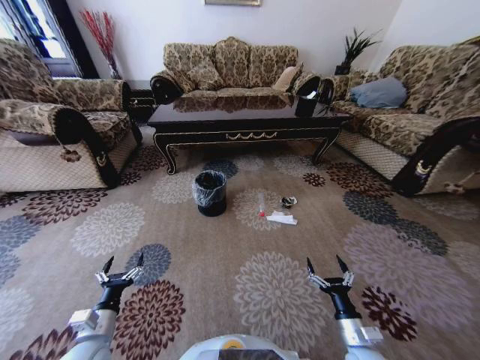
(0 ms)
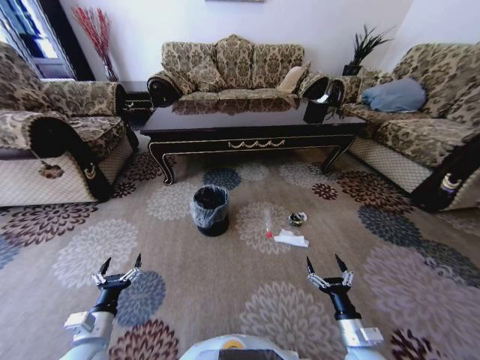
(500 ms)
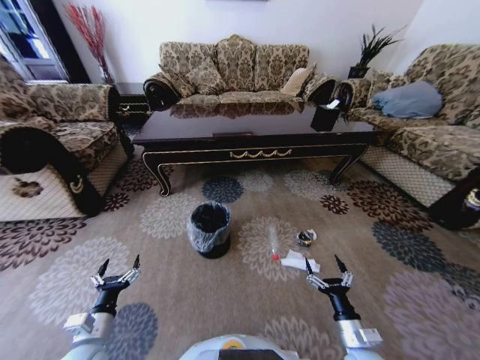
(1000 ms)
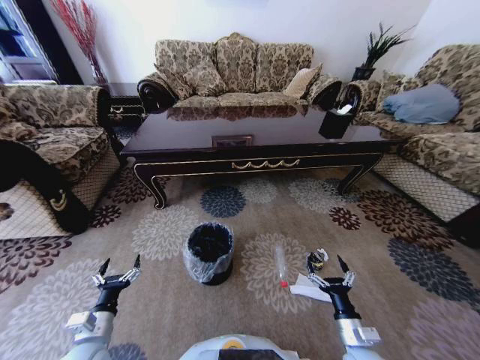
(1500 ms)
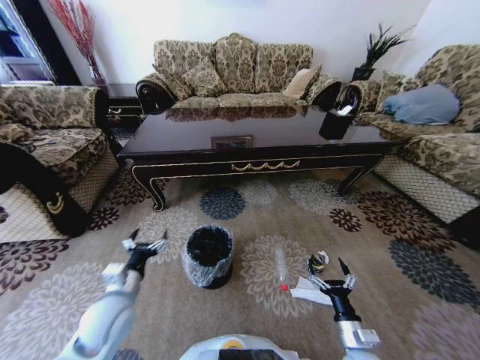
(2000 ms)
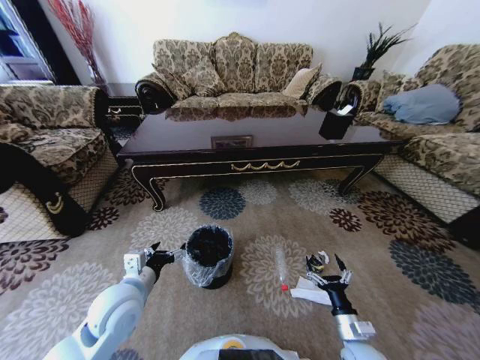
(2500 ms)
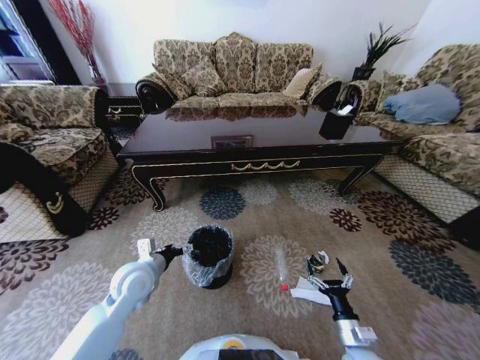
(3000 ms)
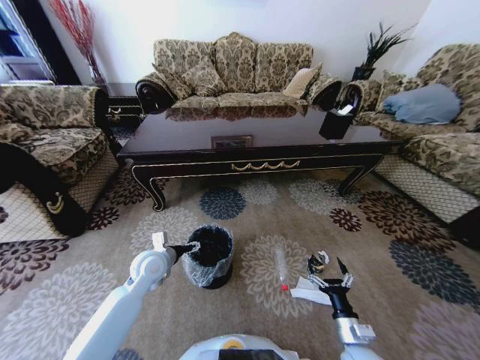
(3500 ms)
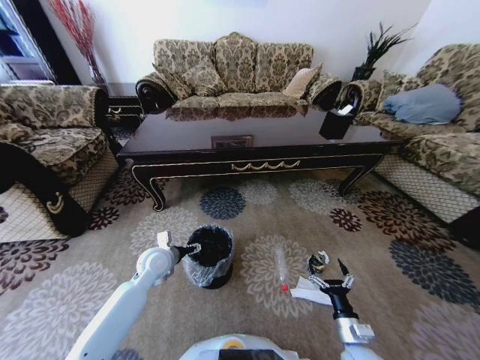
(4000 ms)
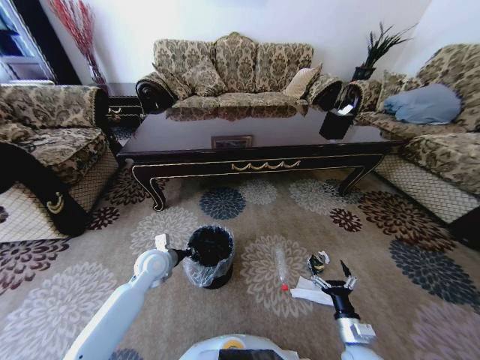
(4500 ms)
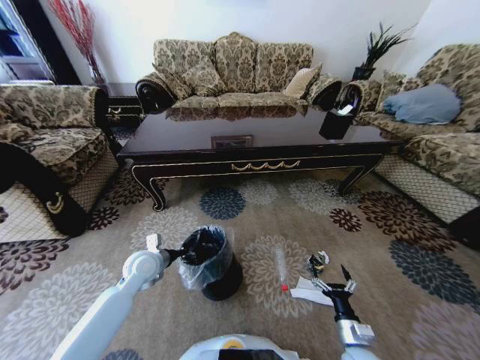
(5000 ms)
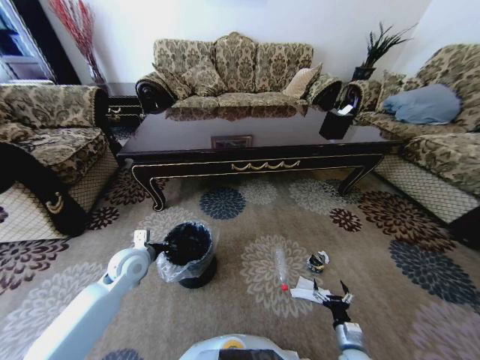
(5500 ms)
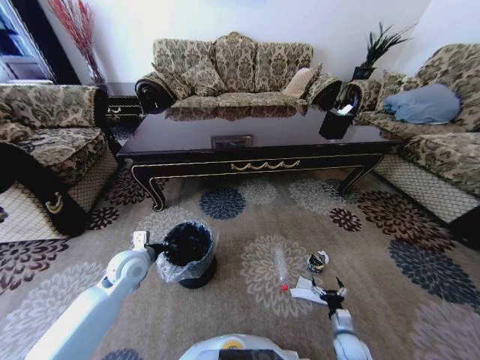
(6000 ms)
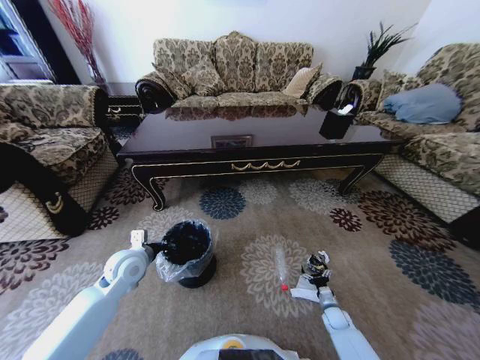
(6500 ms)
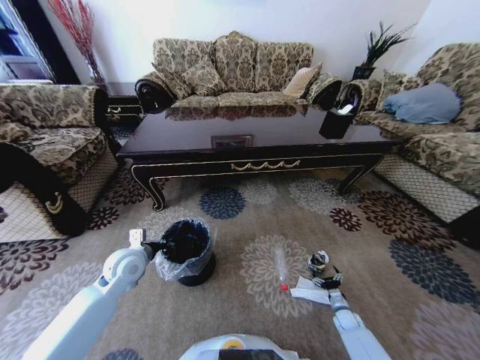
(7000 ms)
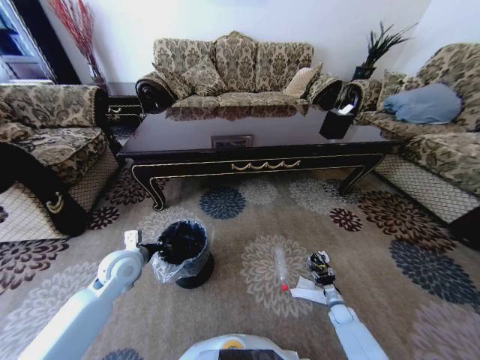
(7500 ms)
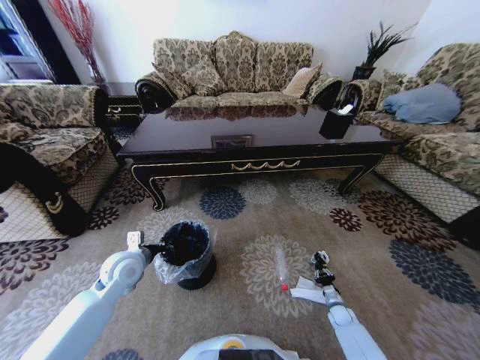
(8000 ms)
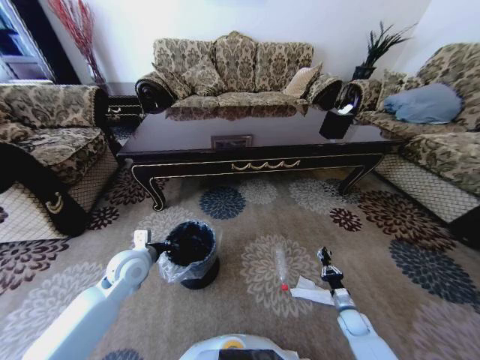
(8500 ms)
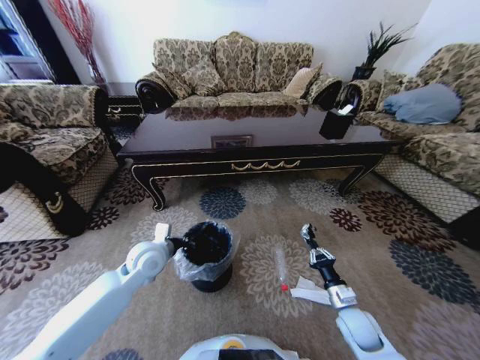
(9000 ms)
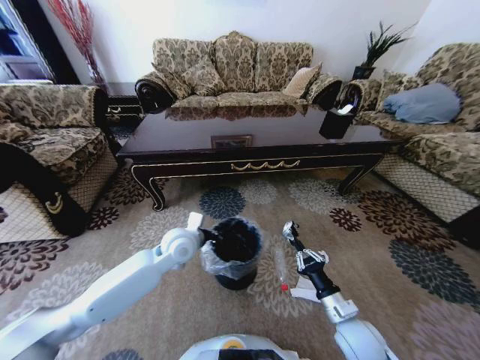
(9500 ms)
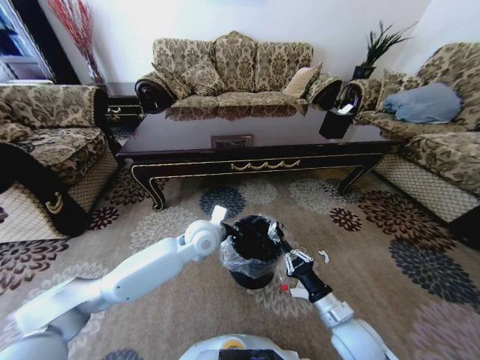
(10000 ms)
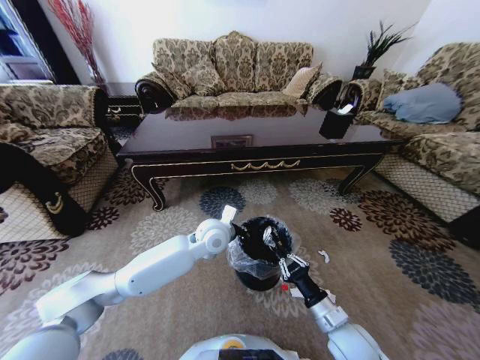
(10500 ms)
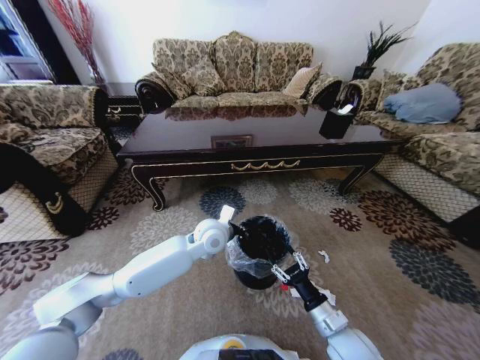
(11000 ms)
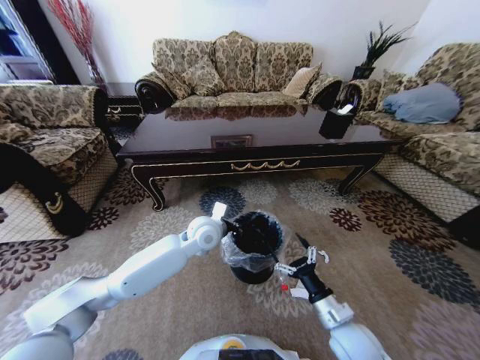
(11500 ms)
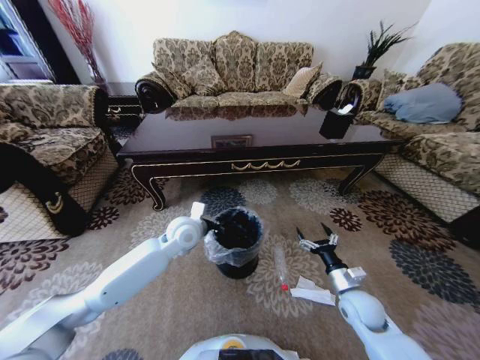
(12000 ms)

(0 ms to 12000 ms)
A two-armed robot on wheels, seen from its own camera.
Task of the whole recording: Move to the front of the table and pick up the trash from the floor, then place it into the trash bin.
0 ms - 2000 ms: The left gripper travels upward, forward and to the right by about 15 cm.
2000 ms - 4000 ms: The left gripper heads forward, covering roughly 15 cm.
4000 ms - 6000 ms: The right gripper heads downward and to the right, covering roughly 15 cm, while the left gripper heads to the left, covering roughly 5 cm, and closes its fingers.
6000 ms - 8000 ms: The right gripper shifts some 10 cm forward and to the right, and closes.
8000 ms - 10000 ms: The right gripper goes approximately 30 cm upward and to the left; the left gripper travels to the right by some 20 cm.
10000 ms - 12000 ms: The left gripper moves to the left, approximately 5 cm, while the right gripper moves to the right and forward, about 10 cm, and opens.

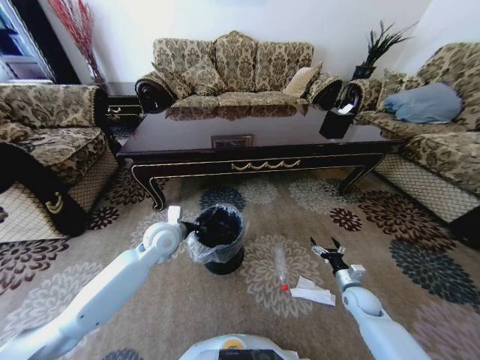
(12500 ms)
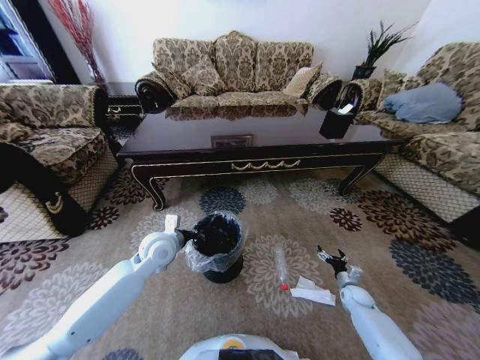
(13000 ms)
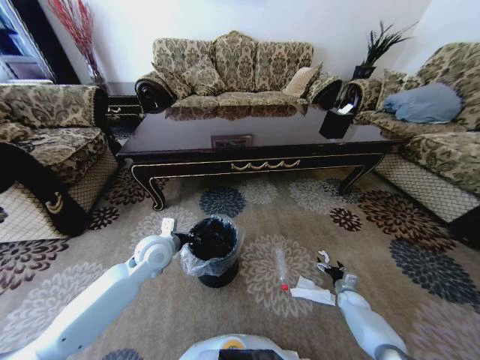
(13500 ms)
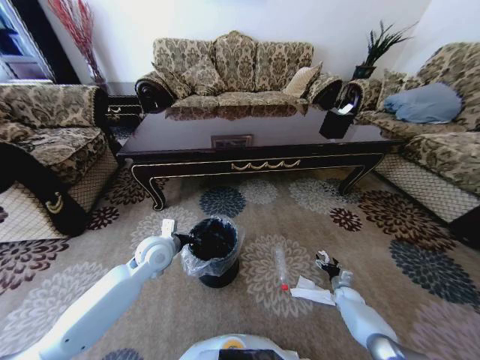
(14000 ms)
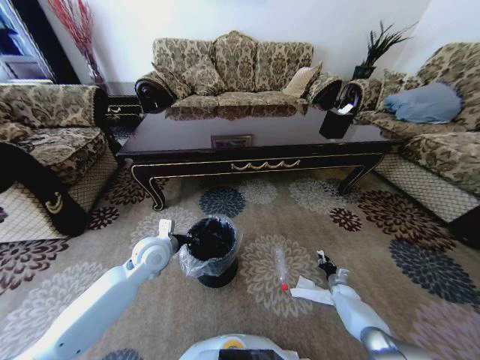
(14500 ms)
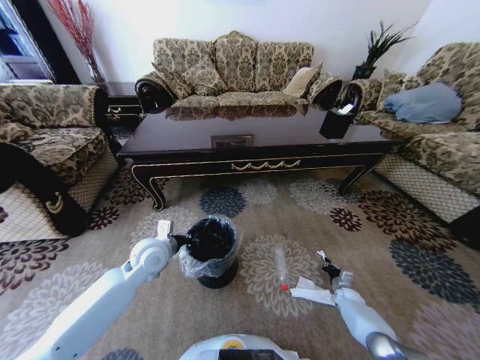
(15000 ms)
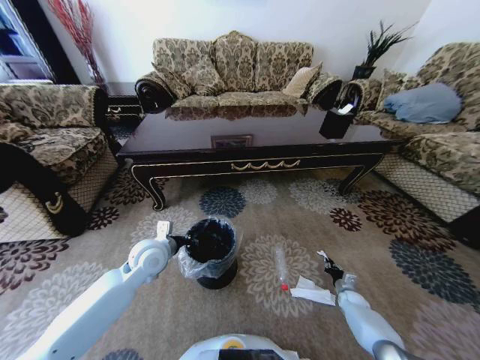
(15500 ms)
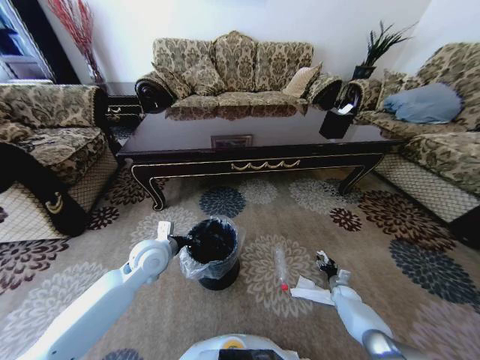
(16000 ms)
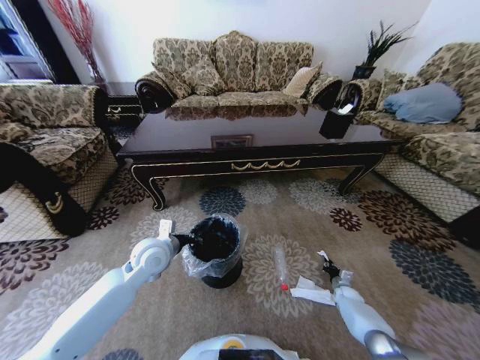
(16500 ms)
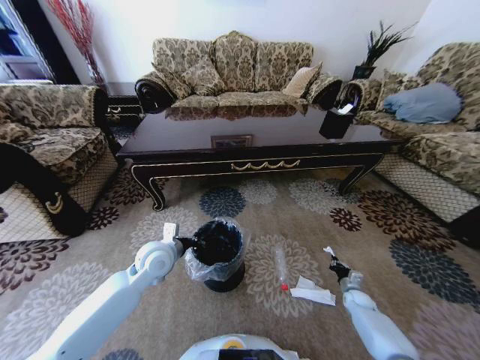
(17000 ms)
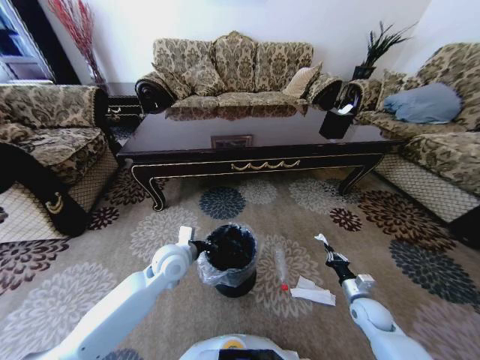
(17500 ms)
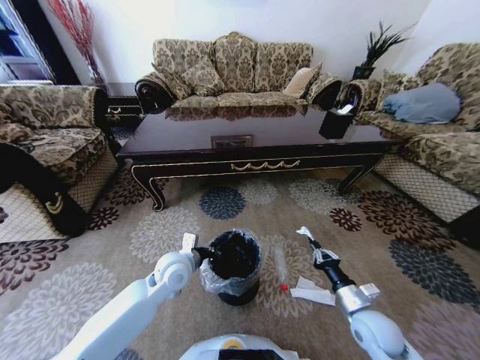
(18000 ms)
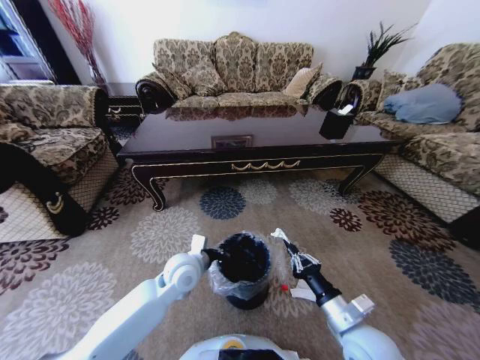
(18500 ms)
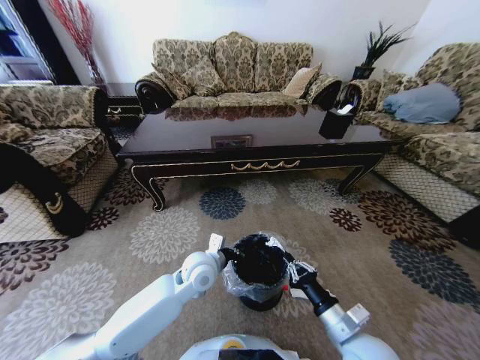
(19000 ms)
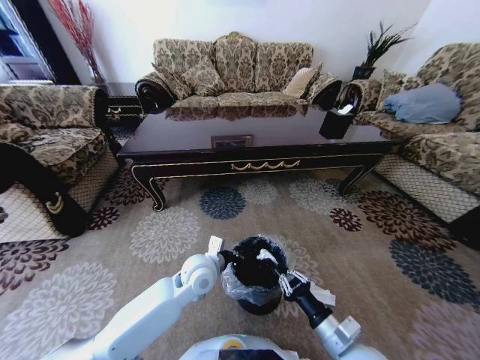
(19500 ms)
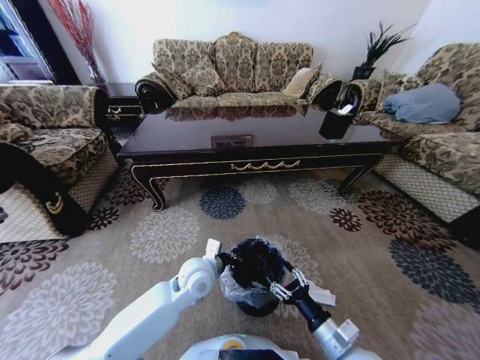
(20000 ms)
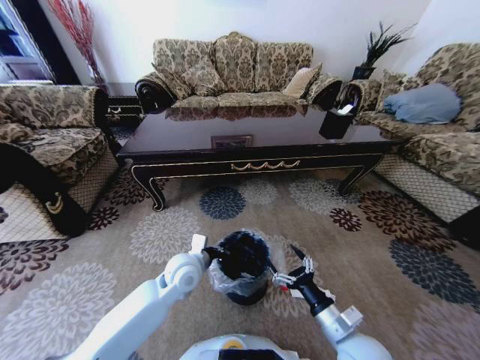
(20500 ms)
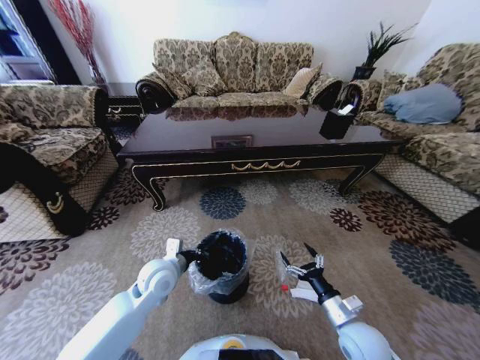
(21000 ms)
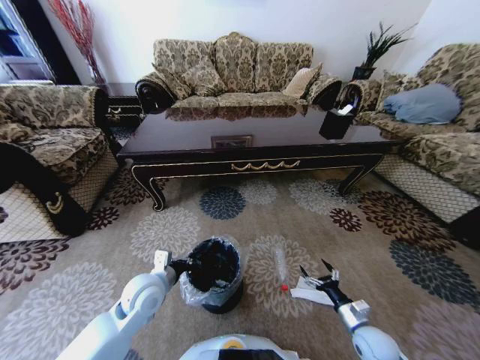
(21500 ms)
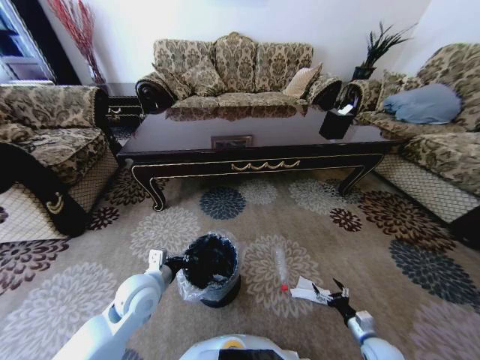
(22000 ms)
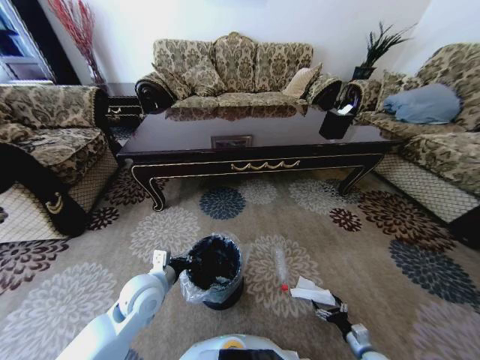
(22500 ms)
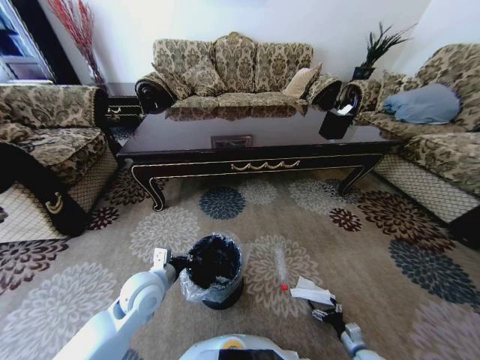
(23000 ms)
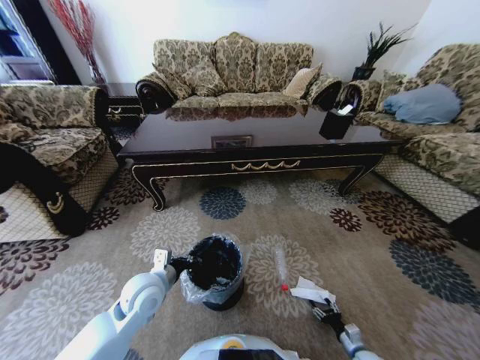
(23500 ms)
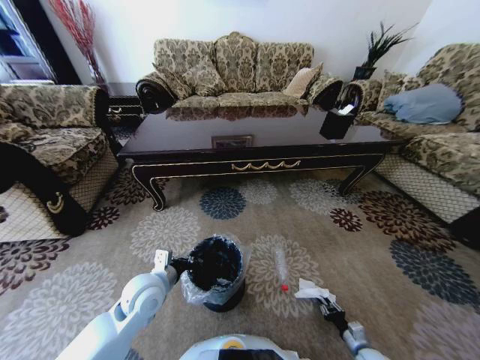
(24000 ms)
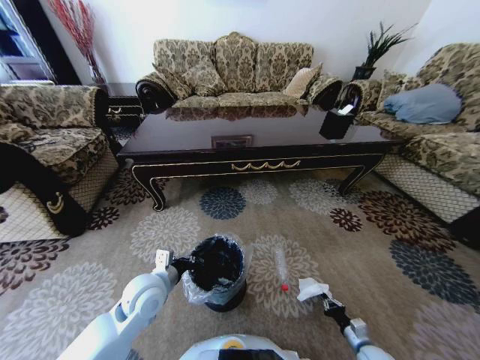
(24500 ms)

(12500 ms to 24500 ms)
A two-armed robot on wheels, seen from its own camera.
Task of the whole recording: Move to the front of the table and pick up the trash from the floor, then place it into the trash bin.
12500 ms - 14500 ms: The right gripper shifts approximately 15 cm downward and forward, and closes.
14500 ms - 16500 ms: The right gripper opens and closes again.
16500 ms - 18500 ms: The left gripper goes about 10 cm to the right. Meanwhile the right gripper heads upward, to the left and backward, covering roughly 40 cm.
18500 ms - 20500 ms: The right gripper opens up.
20500 ms - 22500 ms: The left gripper moves to the left and backward, some 10 cm; the right gripper goes roughly 30 cm downward and to the right.
22500 ms - 24500 ms: The right gripper closes up.

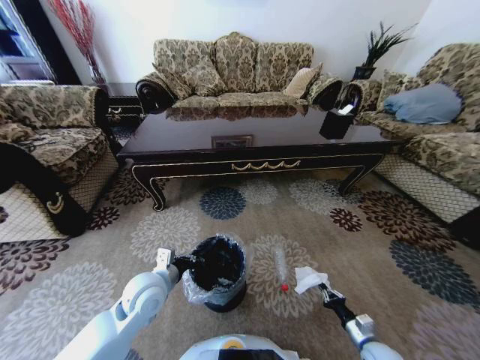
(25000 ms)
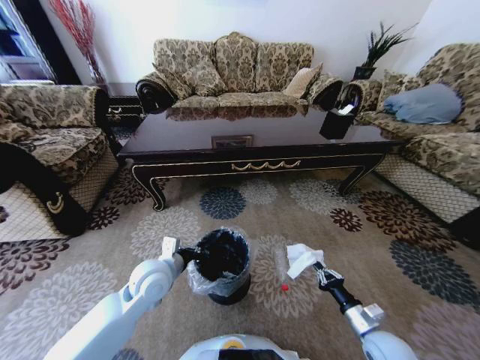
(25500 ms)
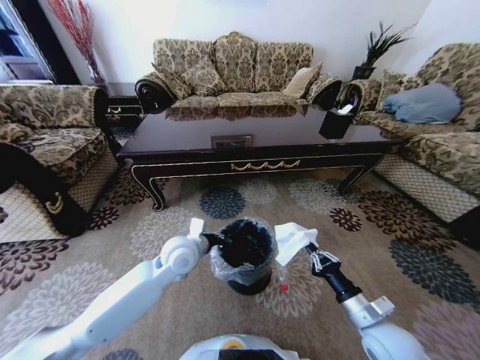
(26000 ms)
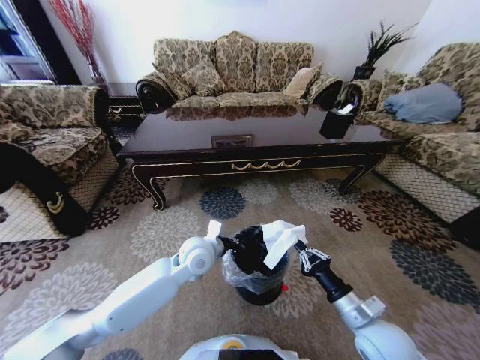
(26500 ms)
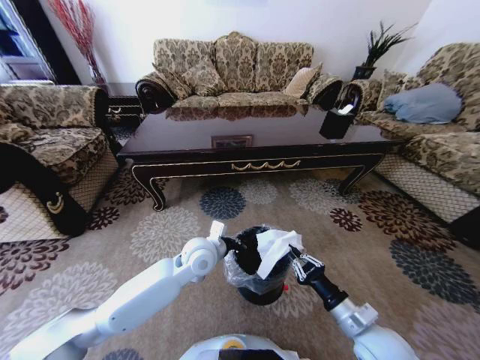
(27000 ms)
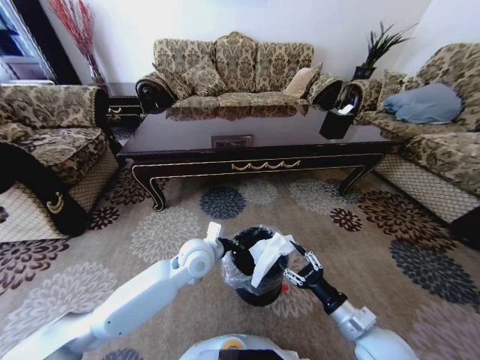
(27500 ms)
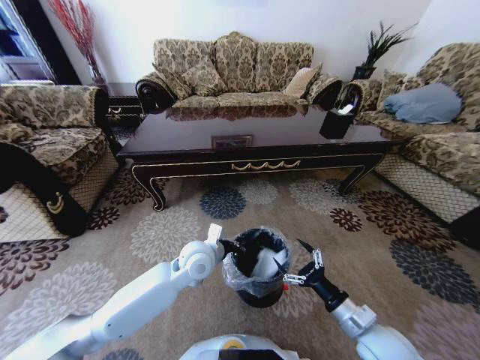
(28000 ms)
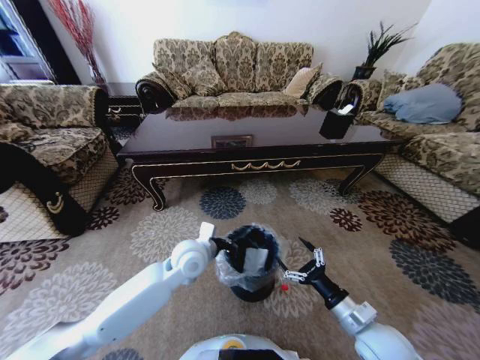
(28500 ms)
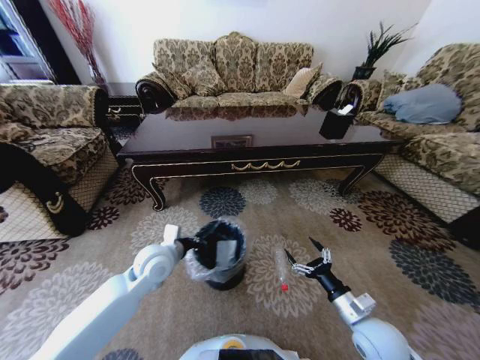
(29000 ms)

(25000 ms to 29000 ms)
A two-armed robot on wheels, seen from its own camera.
Task of the whole recording: Move to the front of the table and pick up the trash from the floor, then place it into the trash bin.
25000 ms - 27000 ms: The left gripper travels to the right and forward by about 15 cm, while the right gripper travels upward and to the left by roughly 25 cm.
27000 ms - 29000 ms: The right gripper opens. Meanwhile the left gripper travels to the left by approximately 10 cm.
